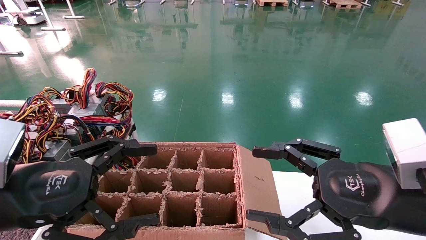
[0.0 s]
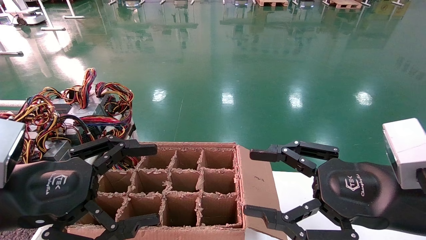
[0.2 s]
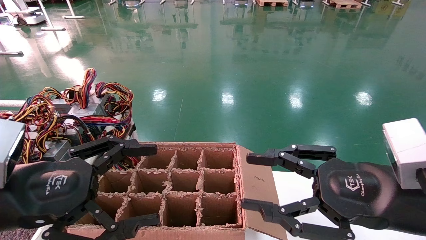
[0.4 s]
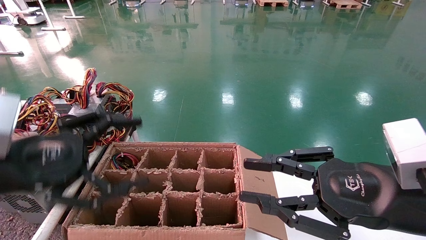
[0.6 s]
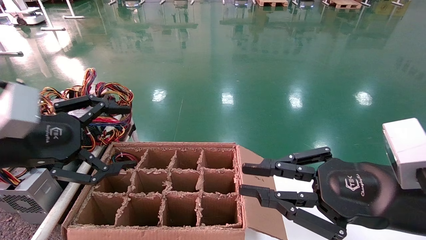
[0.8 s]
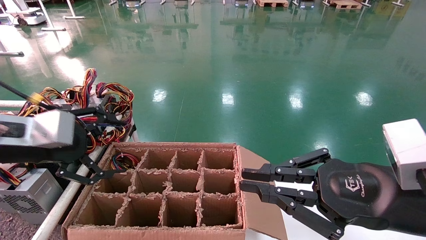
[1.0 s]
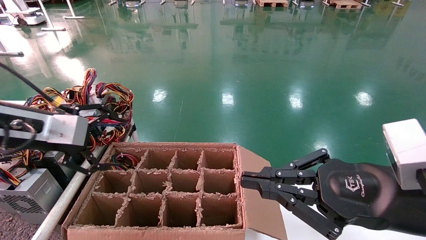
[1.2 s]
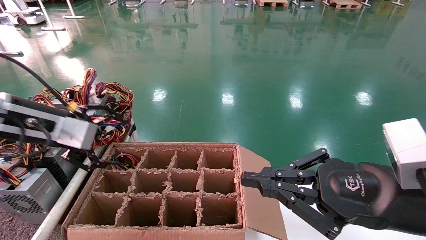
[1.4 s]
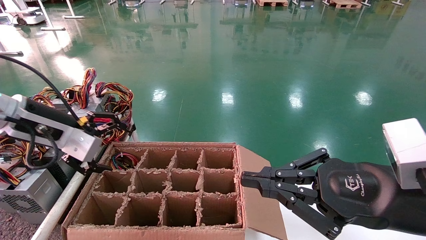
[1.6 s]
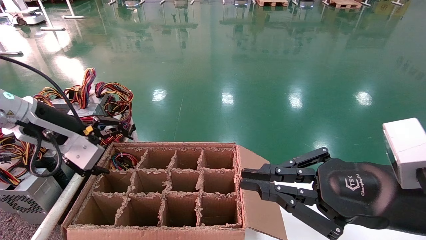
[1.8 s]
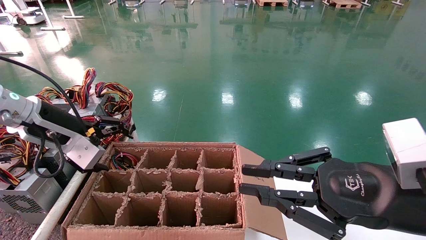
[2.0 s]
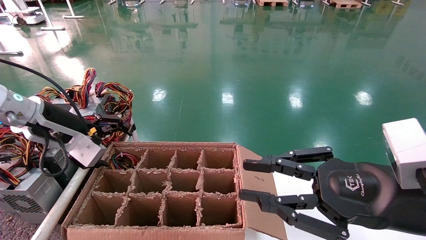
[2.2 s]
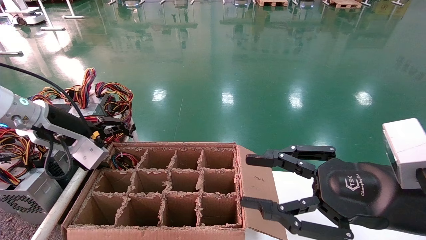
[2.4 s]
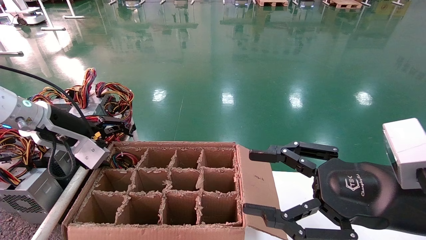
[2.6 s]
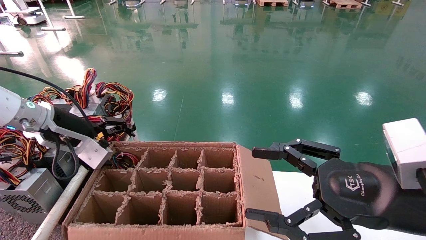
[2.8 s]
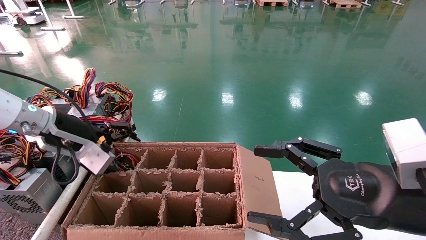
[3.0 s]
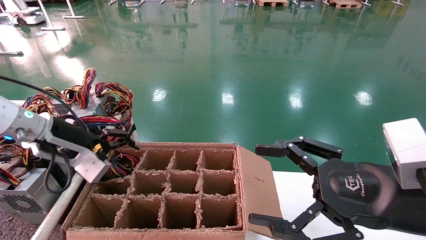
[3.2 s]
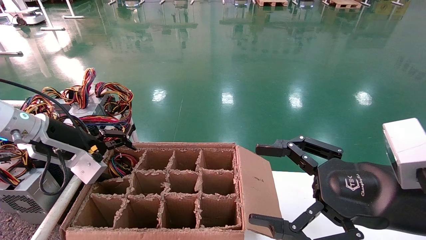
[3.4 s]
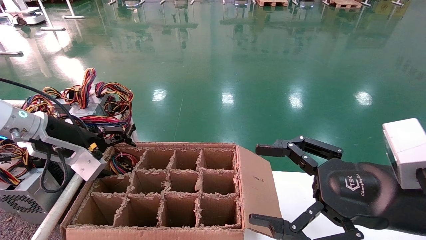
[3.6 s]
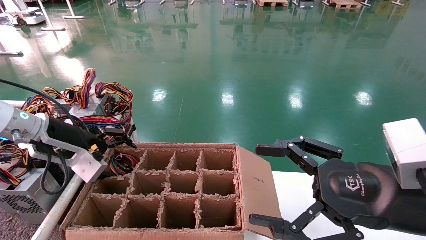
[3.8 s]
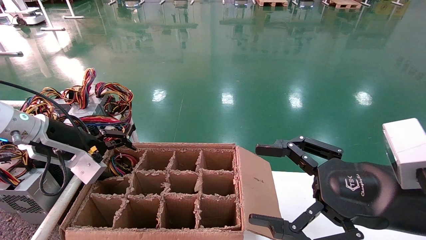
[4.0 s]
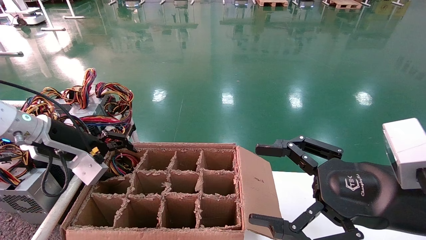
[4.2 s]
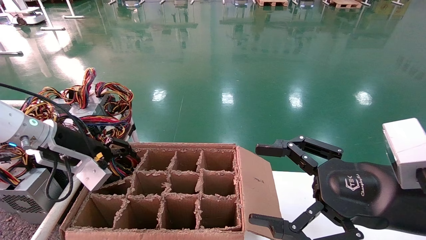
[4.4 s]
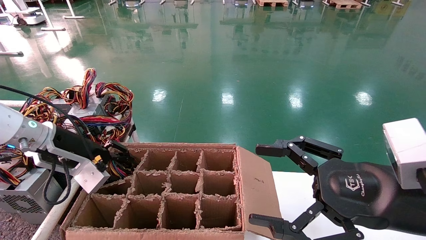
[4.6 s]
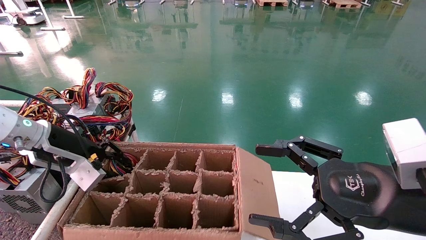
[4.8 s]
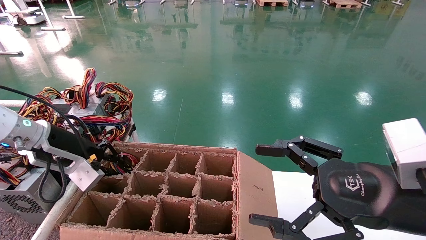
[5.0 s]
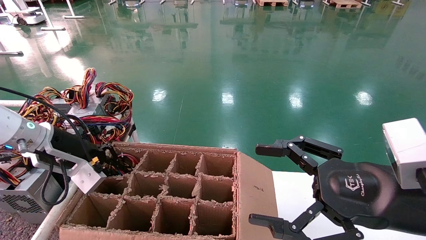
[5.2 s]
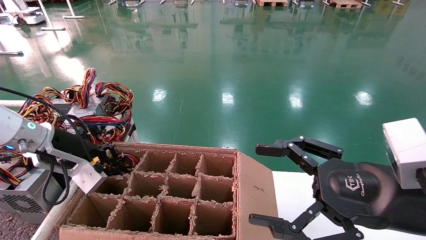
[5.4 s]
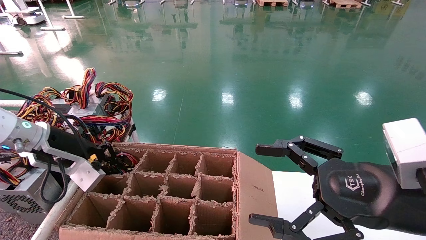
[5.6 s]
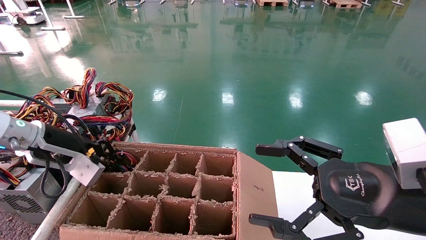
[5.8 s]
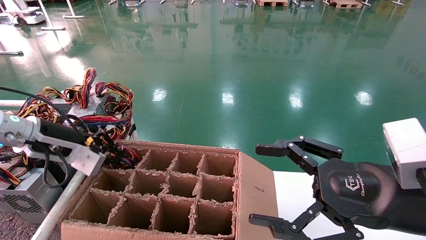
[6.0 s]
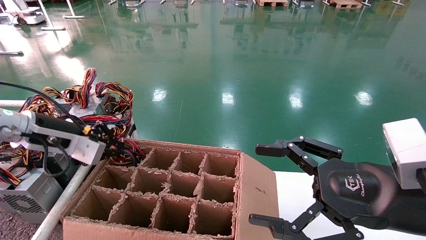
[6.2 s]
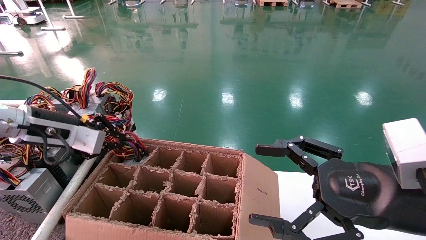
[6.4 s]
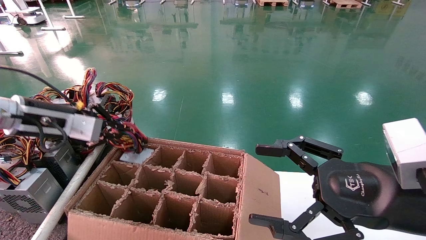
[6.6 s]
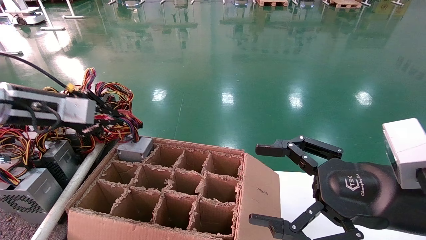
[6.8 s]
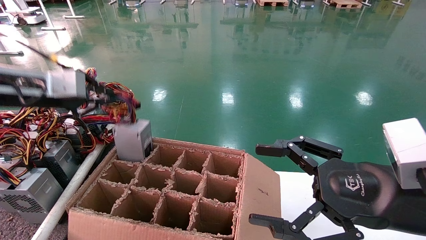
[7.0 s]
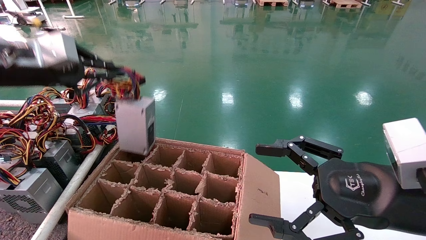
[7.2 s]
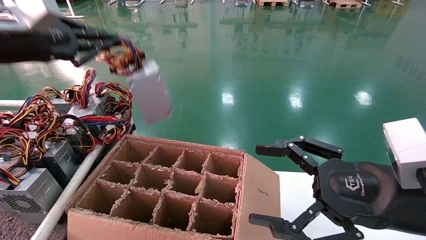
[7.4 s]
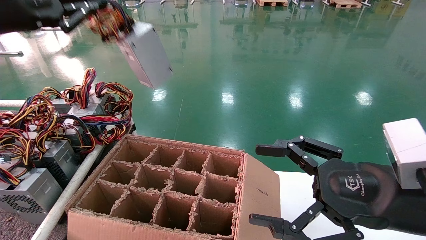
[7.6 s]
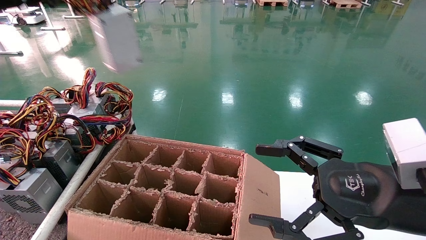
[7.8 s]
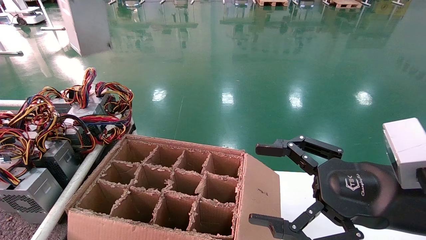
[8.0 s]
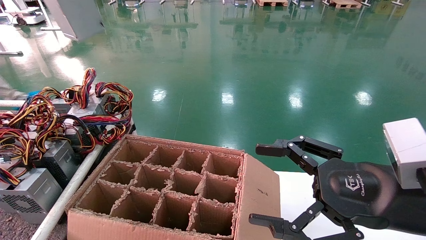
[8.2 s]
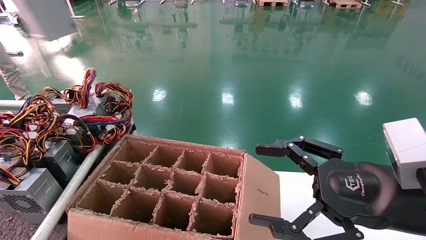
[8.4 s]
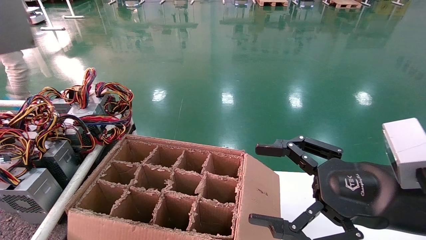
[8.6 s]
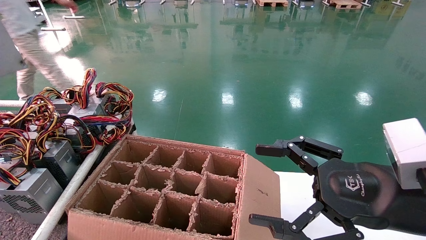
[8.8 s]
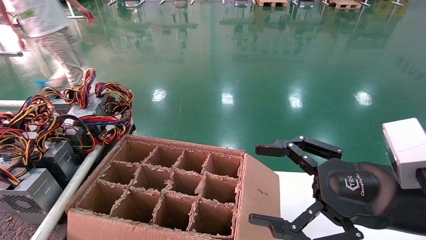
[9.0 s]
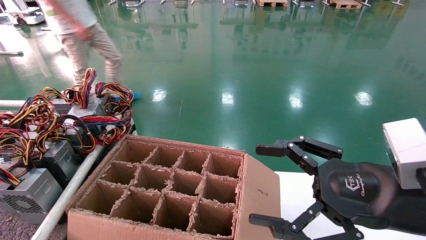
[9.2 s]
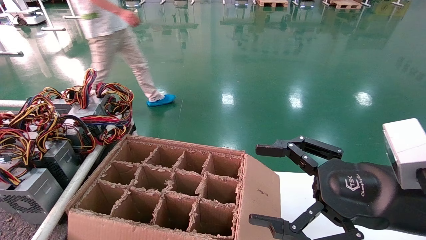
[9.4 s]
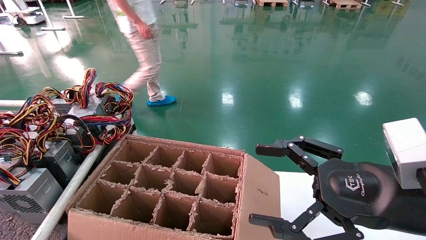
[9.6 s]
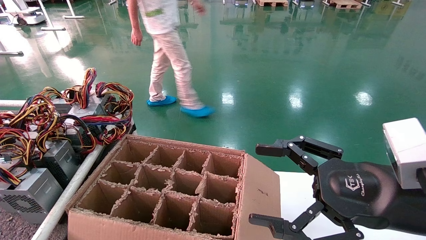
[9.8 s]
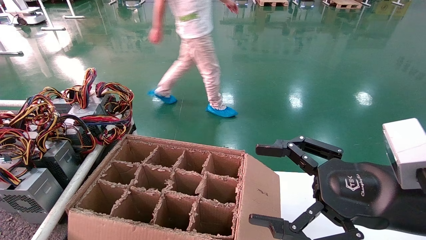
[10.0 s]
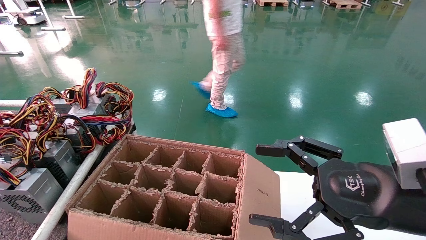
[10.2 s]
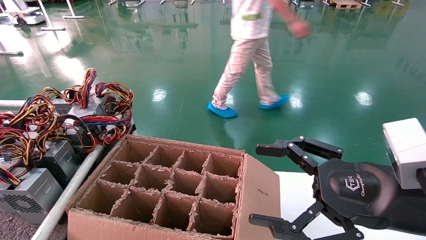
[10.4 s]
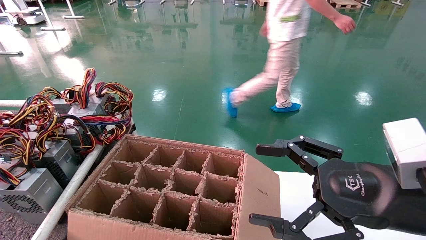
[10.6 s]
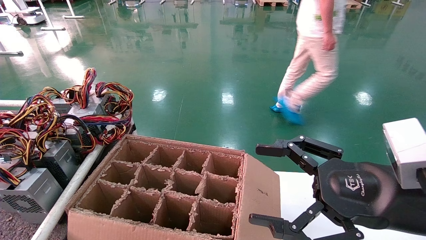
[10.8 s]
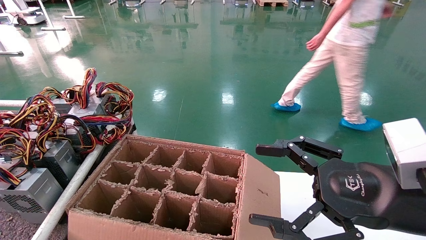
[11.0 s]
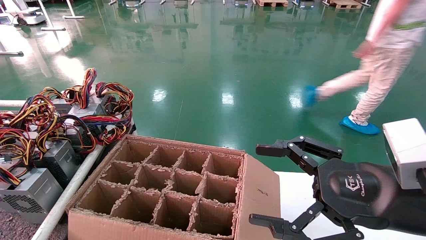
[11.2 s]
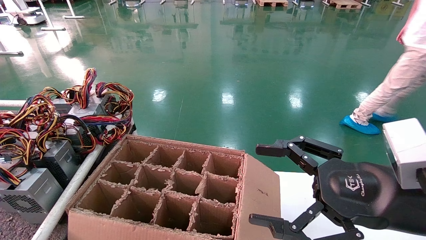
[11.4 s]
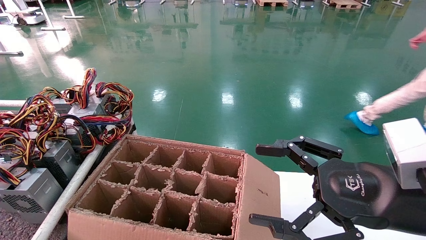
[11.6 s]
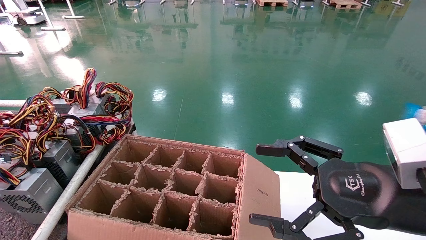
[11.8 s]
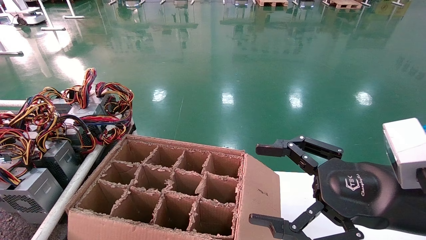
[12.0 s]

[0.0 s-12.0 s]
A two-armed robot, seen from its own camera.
Step, 0.8 to 5.4 s: Grab and lift the power supply from the large box.
0.0 to 1.6 s: The right gripper closes its fingers, while the left gripper heads forward, covering about 15 cm.
1.6 to 3.0 s: The left gripper changes place by roughly 5 cm. Meanwhile the right gripper opens.
3.0 to 4.4 s: The grippers stay close to where they were, moving slightly.
4.4 to 6.0 s: The left gripper closes its fingers.
6.0 to 7.6 s: The left gripper goes approximately 20 cm upward.
7.6 to 9.0 s: The left gripper goes roughly 30 cm to the left and backward.
9.0 to 10.4 s: The left gripper shifts approximately 15 cm backward, to the left and downward.
10.4 to 12.0 s: The left gripper goes some 15 cm downward and forward.

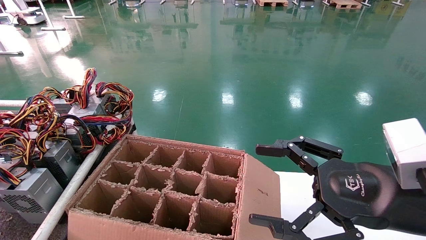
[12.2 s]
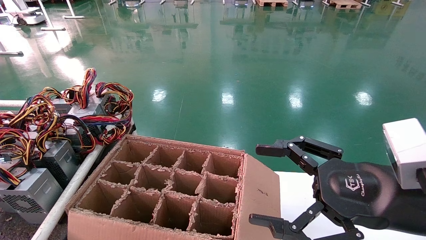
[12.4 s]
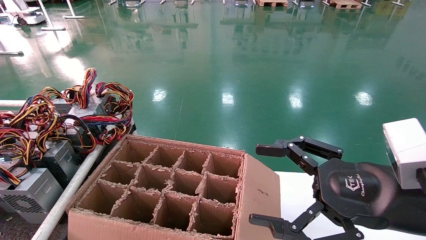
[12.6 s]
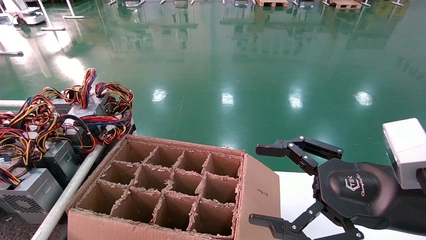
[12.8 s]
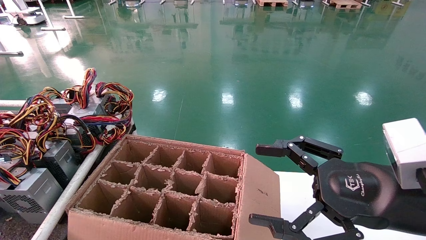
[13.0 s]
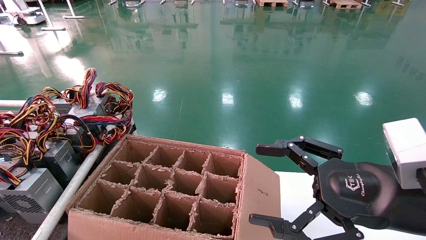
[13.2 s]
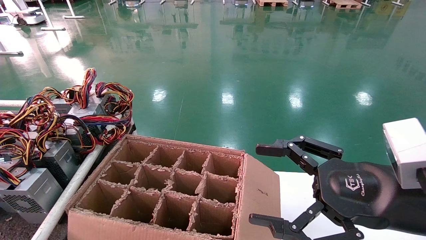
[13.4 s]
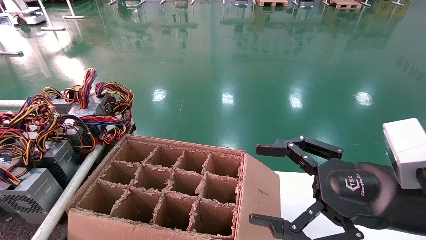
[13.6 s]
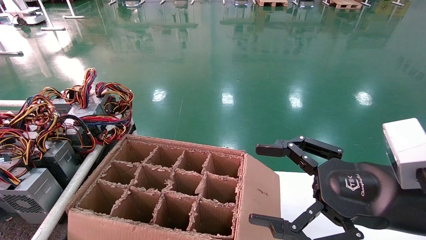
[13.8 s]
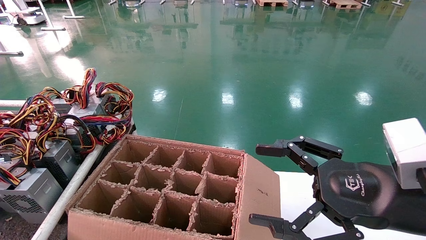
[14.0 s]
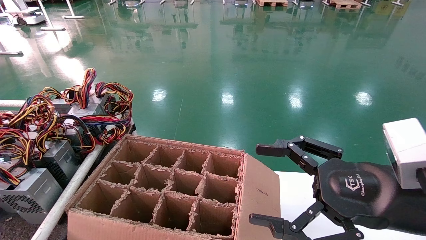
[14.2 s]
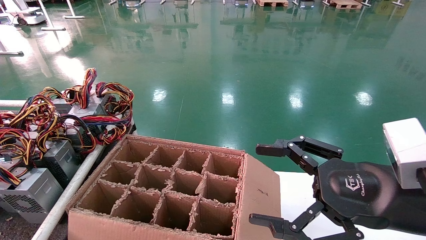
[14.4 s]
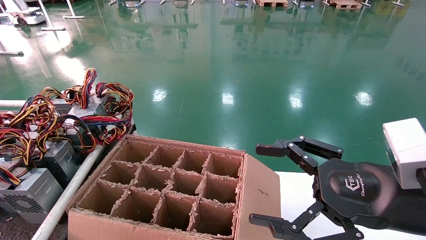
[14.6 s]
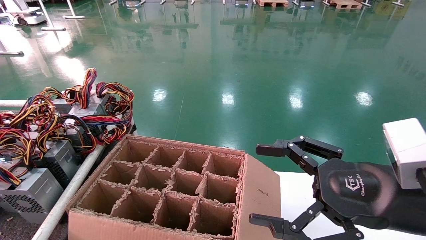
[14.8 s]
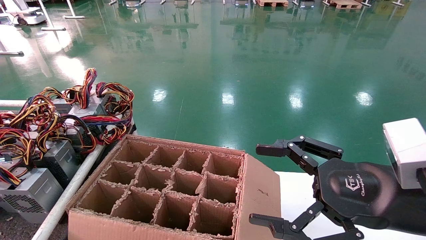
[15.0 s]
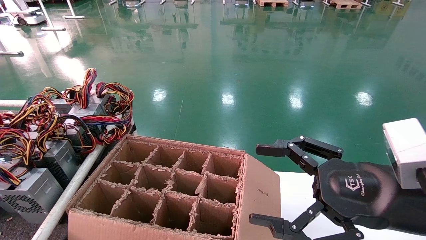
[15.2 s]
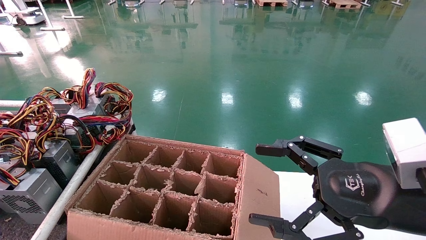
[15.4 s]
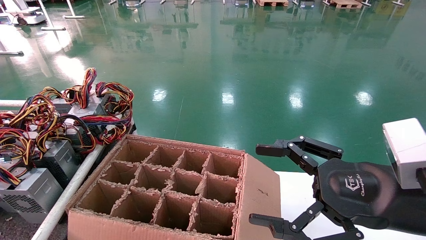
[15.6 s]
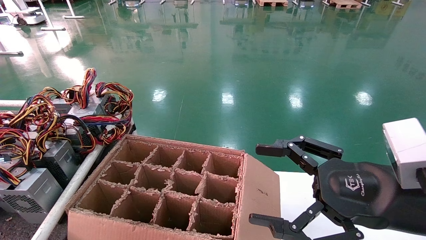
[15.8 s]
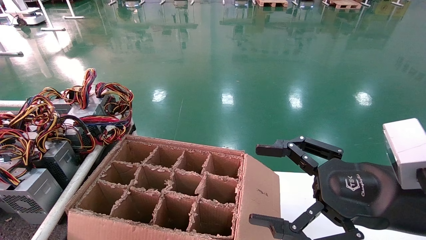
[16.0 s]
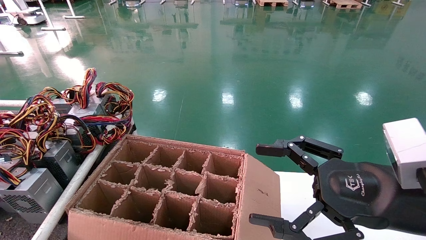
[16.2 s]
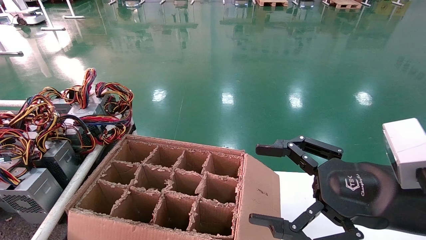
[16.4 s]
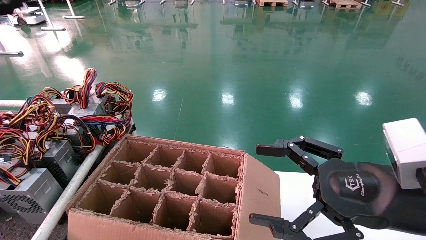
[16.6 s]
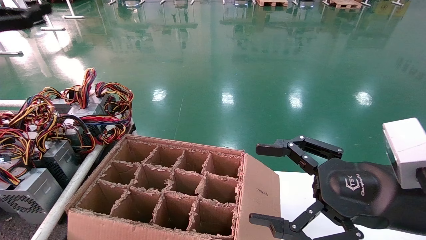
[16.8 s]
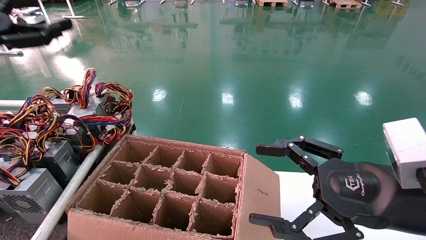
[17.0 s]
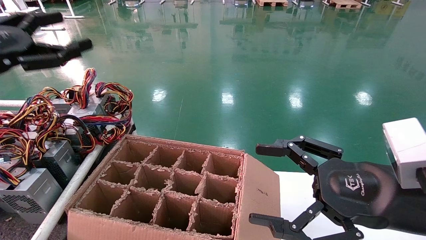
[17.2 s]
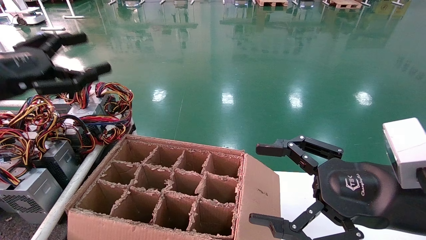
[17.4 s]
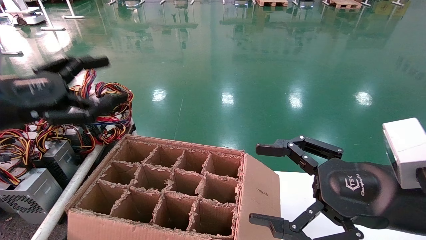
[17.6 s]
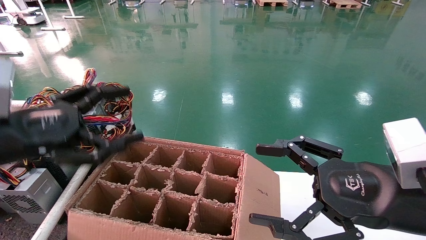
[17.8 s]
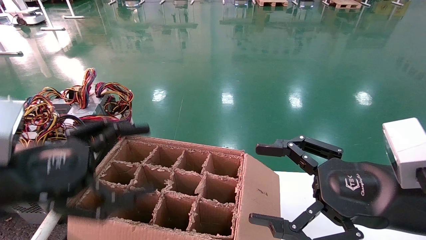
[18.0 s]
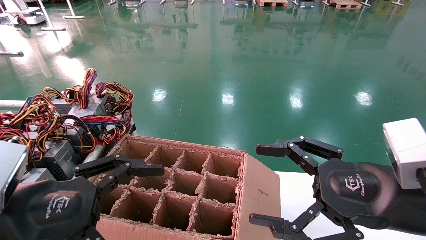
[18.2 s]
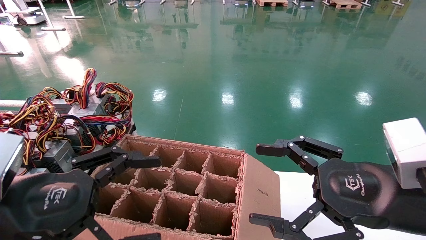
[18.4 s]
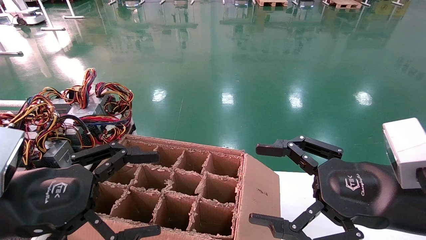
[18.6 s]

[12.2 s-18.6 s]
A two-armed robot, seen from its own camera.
13.8 to 15.4 s: The left gripper is displaced upward and forward by roughly 25 cm, and opens up.
15.4 to 17.0 s: The left gripper is displaced to the right by approximately 15 cm.
17.0 to 18.6 s: The left gripper shifts about 25 cm downward, to the right and backward.
